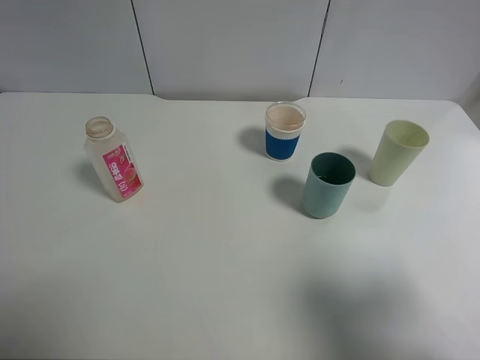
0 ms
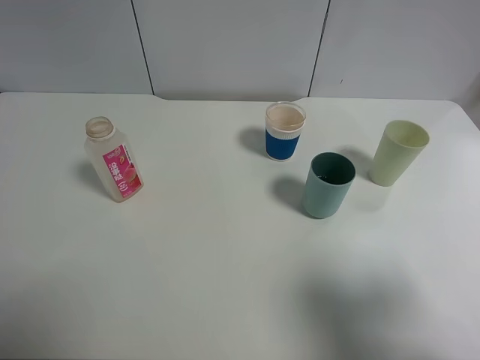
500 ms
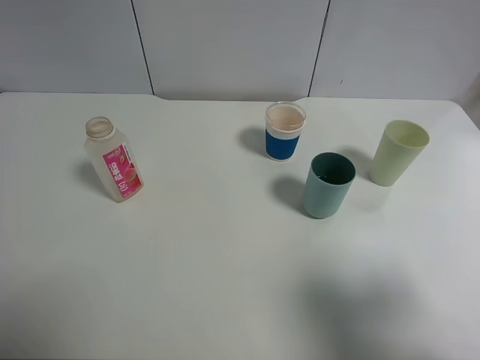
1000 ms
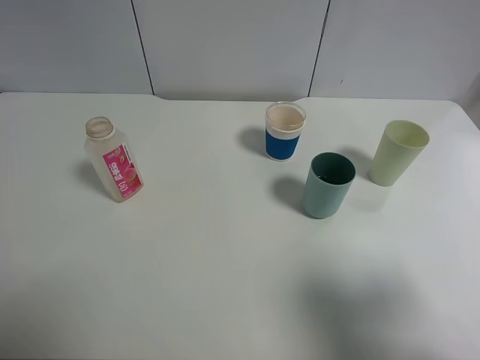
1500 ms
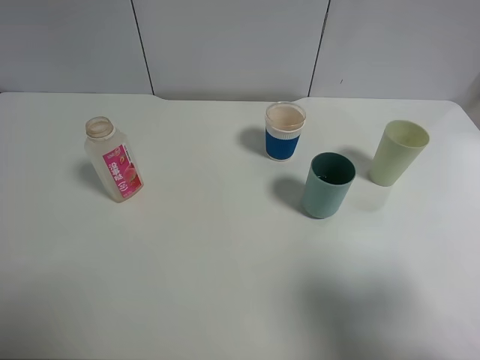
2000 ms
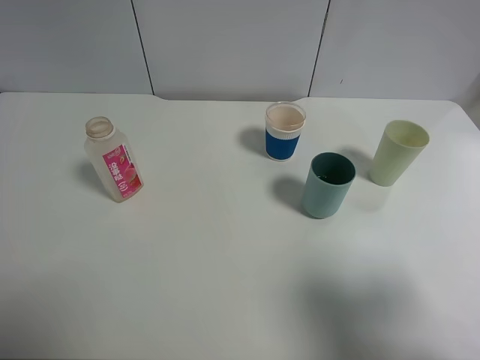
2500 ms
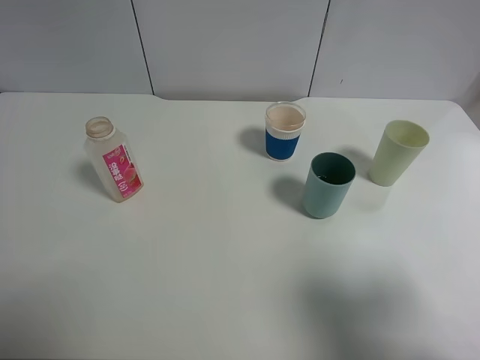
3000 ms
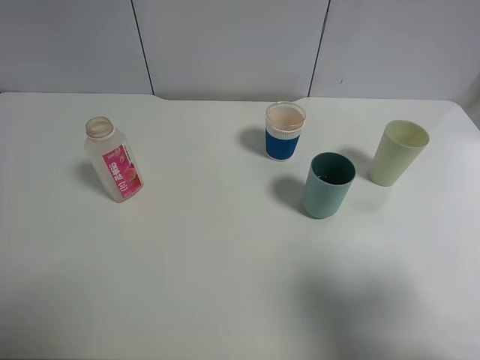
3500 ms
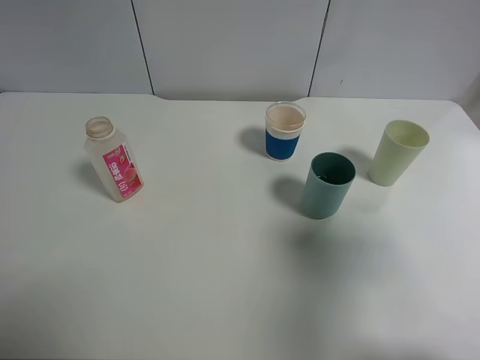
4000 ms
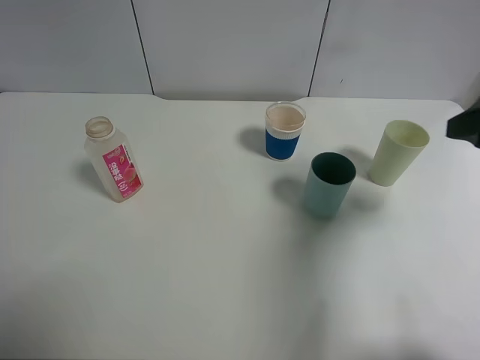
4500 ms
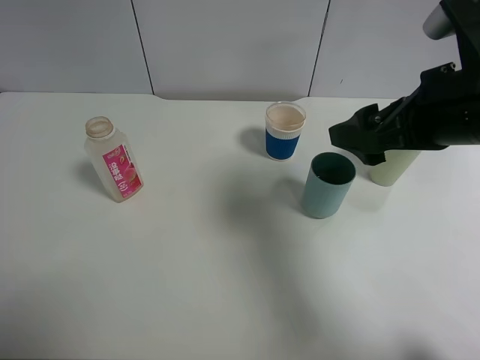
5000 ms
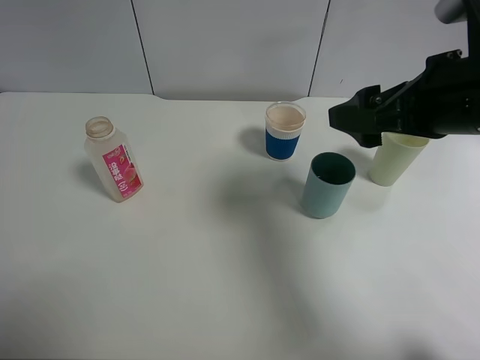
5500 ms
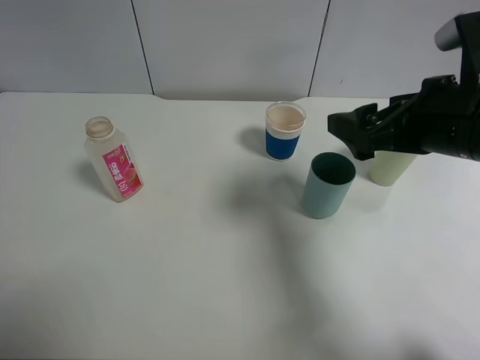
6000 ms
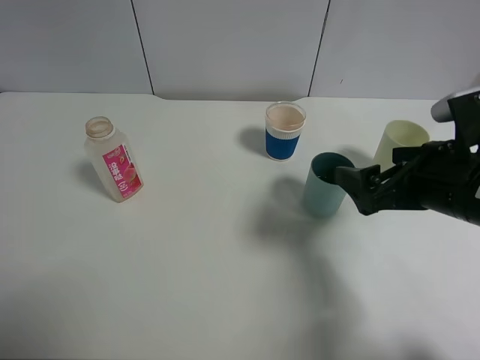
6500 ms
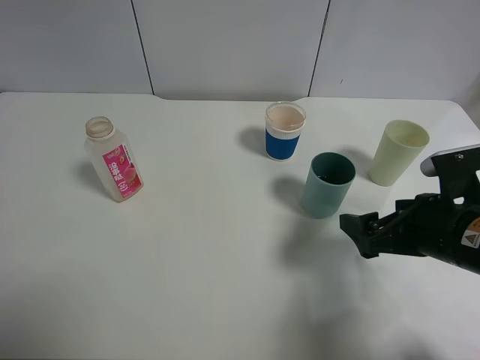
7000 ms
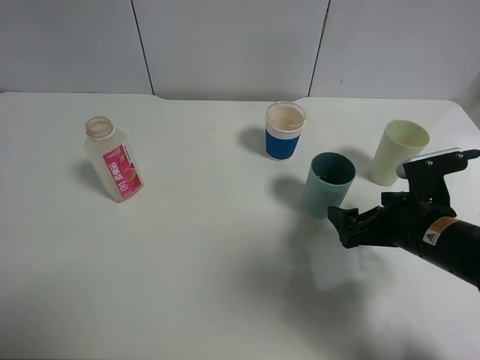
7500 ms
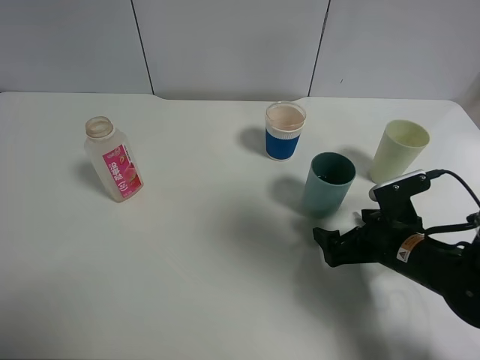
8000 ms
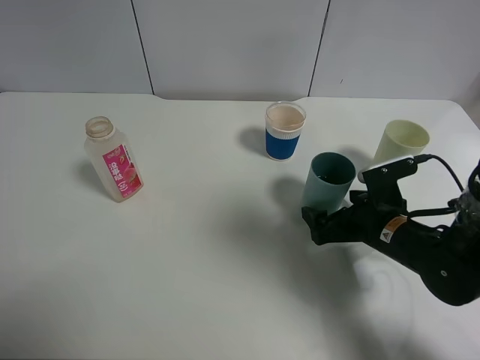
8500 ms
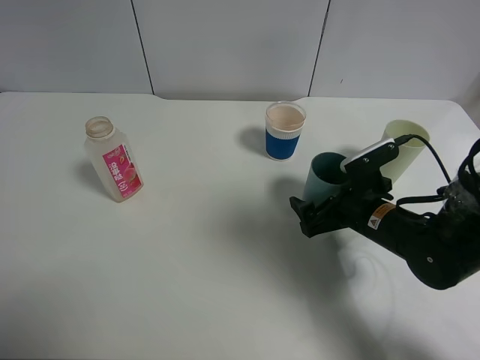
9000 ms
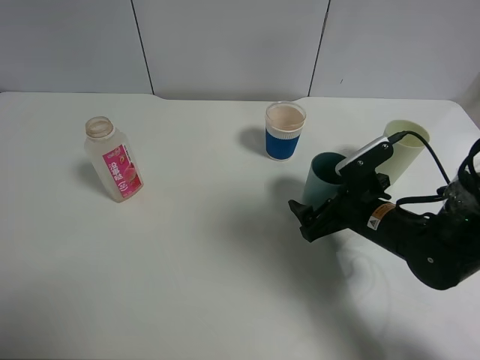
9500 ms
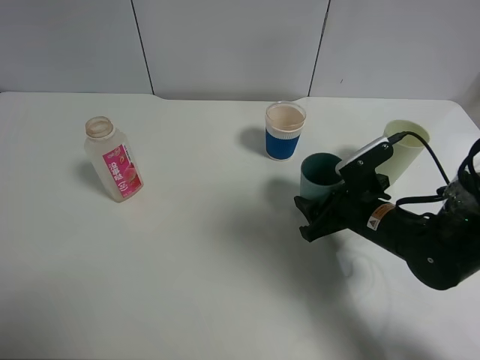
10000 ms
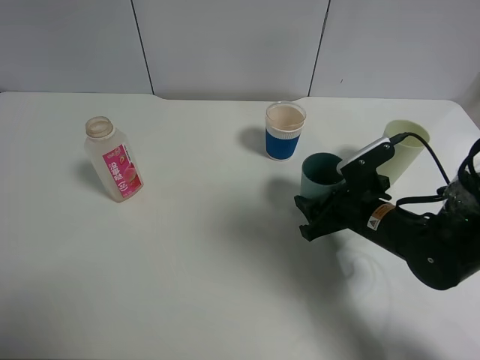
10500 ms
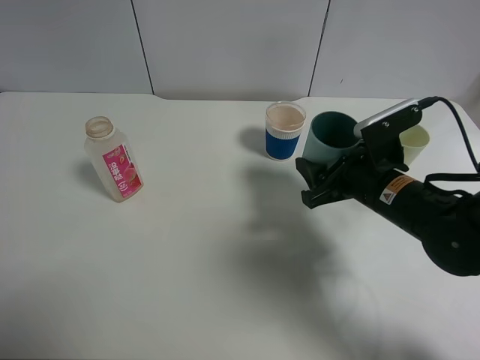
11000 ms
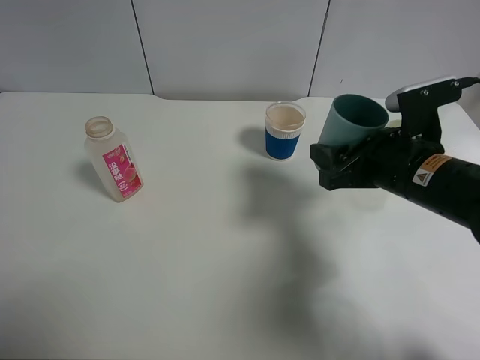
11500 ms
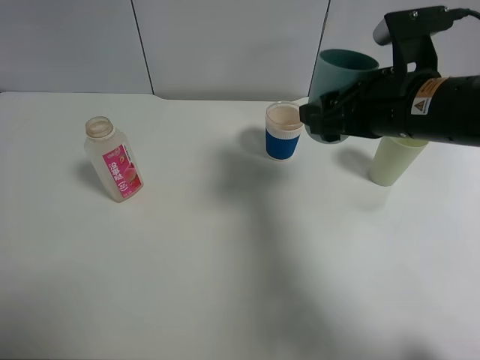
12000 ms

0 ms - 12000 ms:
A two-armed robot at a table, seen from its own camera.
Task of the whole recording: use a clamp to hold the bottle of the drink, pour the beverage into a random cup, then clamp the cup containing the drink and pour the drink into another random cup.
Step, 0 ms - 10500 ms: Pick up the blue plastic cup bottle with right gripper.
2000 ms - 4000 ms: The right gripper is displaced forward by some 10 cm.
4000 ms - 6000 ms: The right gripper is displaced forward, to the left and downward by roughly 15 cm.
6000 ms - 8000 ms: The right gripper is displaced downward by some 20 cm.
8000 ms - 10000 ms: The right gripper shifts by roughly 5 cm, and closes up.
10000 ms - 12000 ms: The right gripper travels upward by some 15 cm.

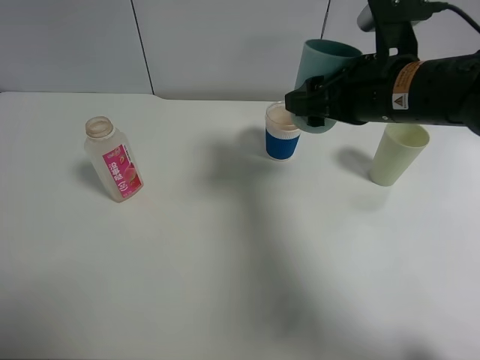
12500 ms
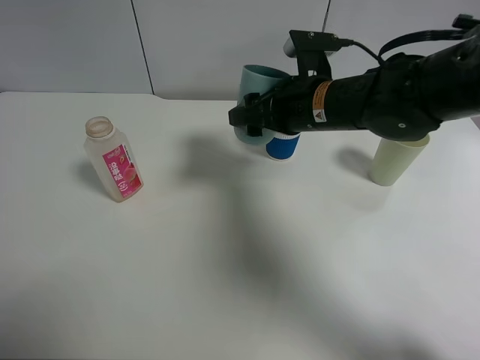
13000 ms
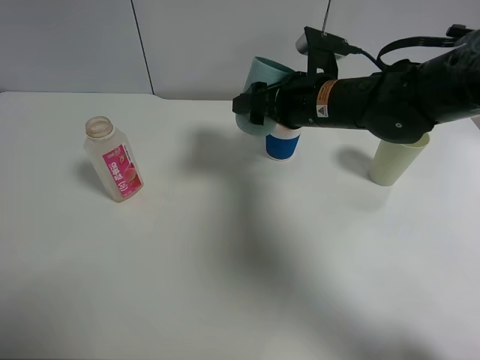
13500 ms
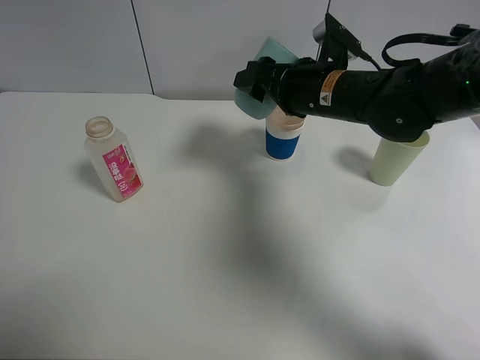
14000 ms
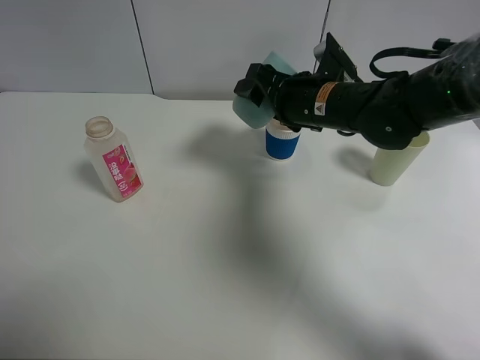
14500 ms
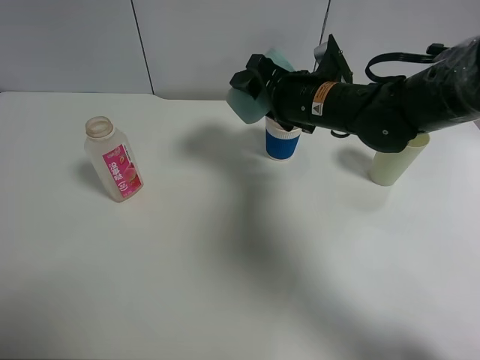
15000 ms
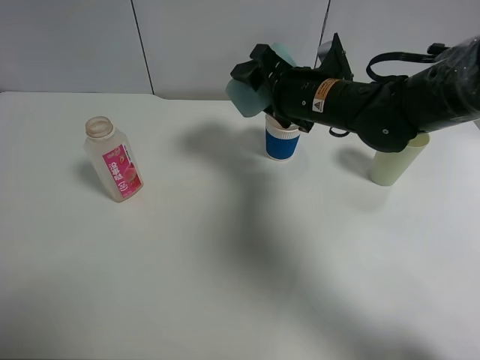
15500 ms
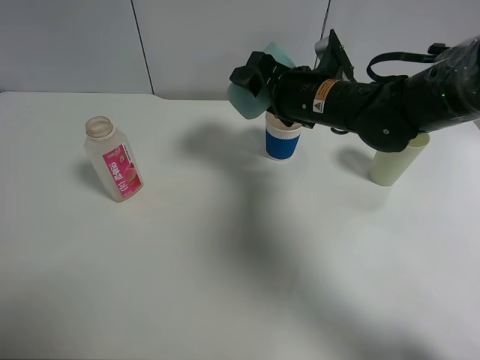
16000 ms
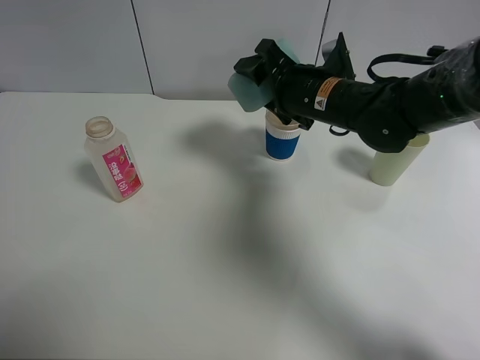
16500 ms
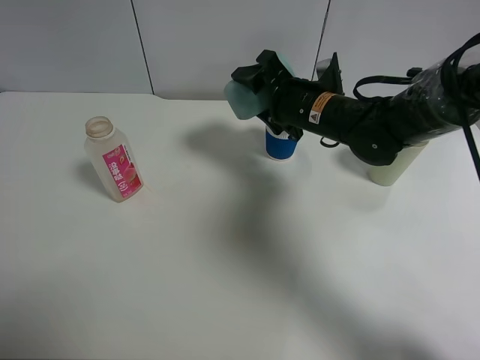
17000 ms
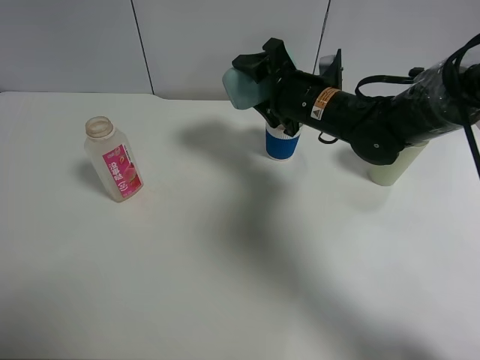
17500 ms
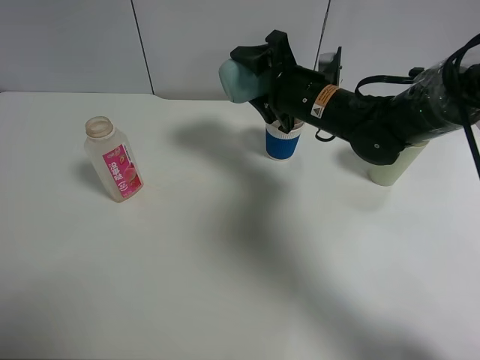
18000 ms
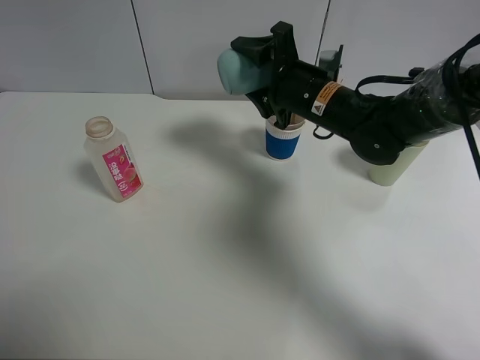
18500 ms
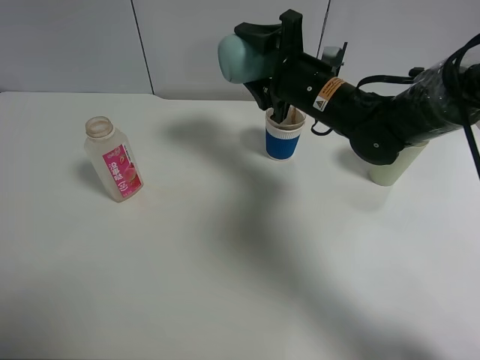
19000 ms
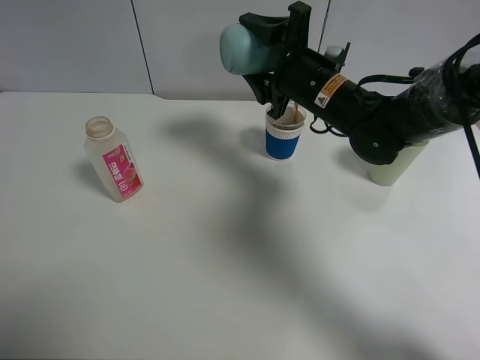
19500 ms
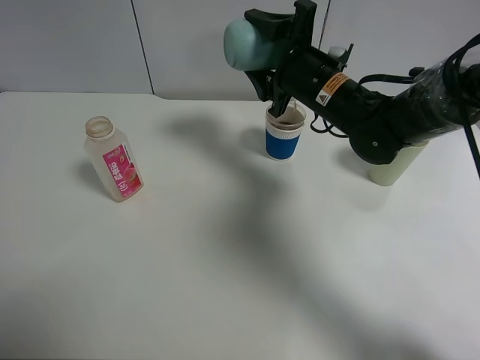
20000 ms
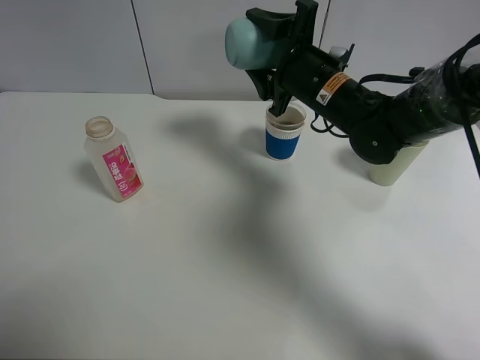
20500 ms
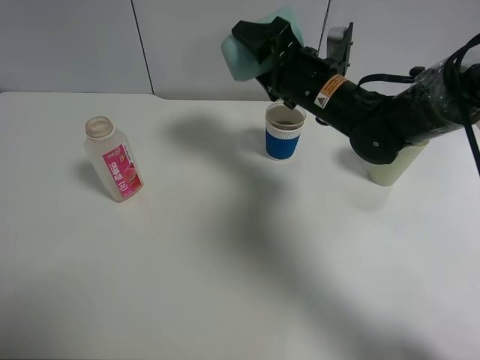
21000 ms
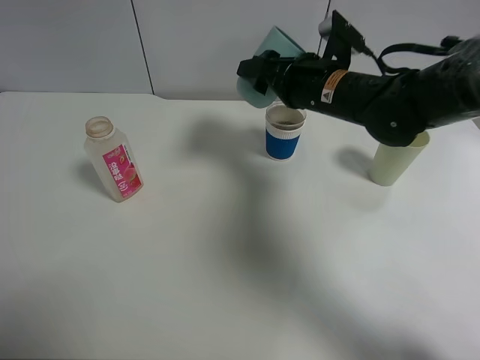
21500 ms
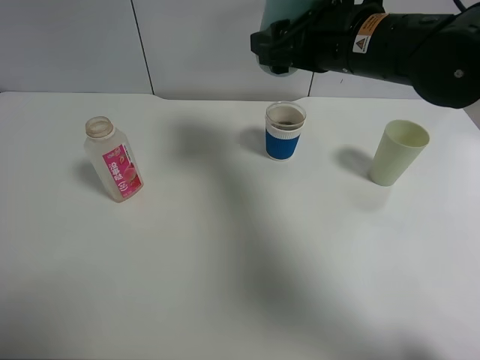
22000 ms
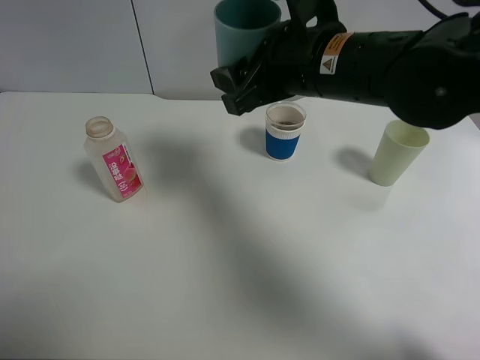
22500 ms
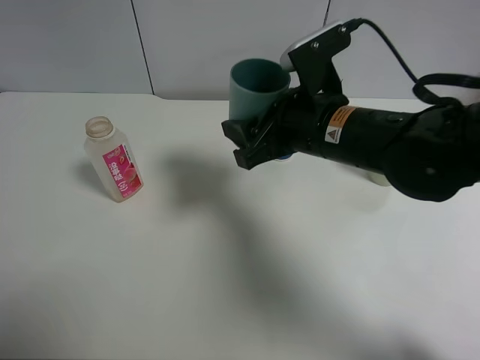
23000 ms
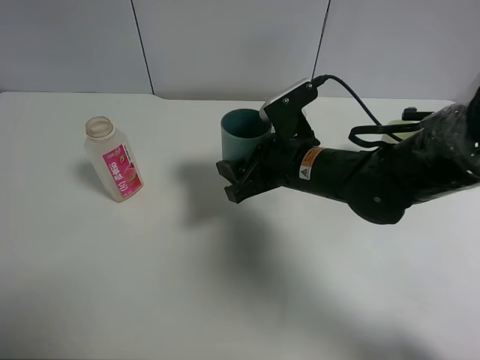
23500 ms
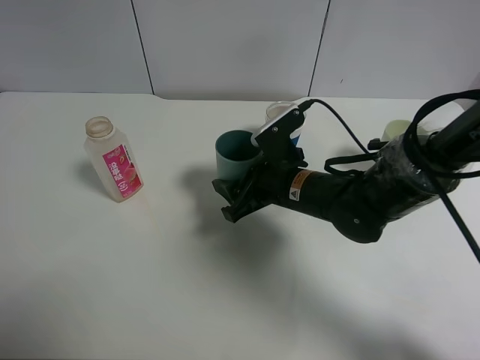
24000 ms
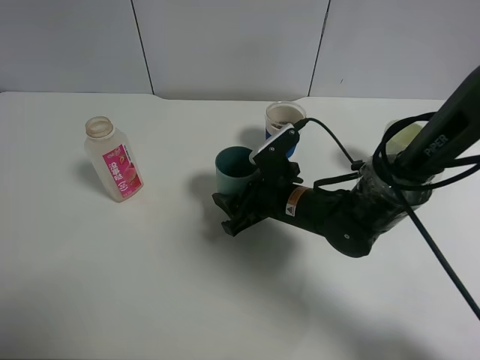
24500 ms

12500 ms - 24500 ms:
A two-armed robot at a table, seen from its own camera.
Task of the whole recording: use a clamp to hold the bottle of the drink, pour the beverage into a random cup, then clamp the cup containing the drink and pour the drink into another random cup.
Step, 12500 ms - 20500 ms: Pour the drink into the paper cup with right gripper.
12500 ms - 14500 ms: The right gripper is displaced forward and downward by some 10 cm.
14500 ms - 16500 ms: The grippers move only a little.
18500 ms - 20500 ms: The grippers make only small movements.
20500 ms - 22500 ms: The right gripper shifts roughly 10 cm backward and upward.
22500 ms - 24500 ms: The right gripper is displaced downward by about 20 cm.

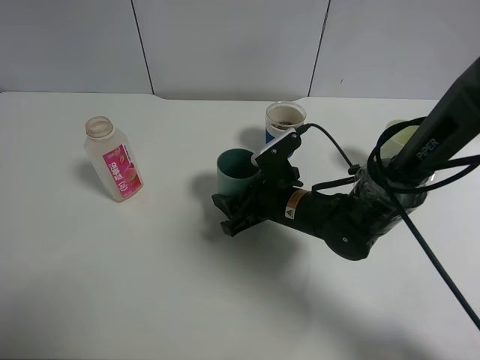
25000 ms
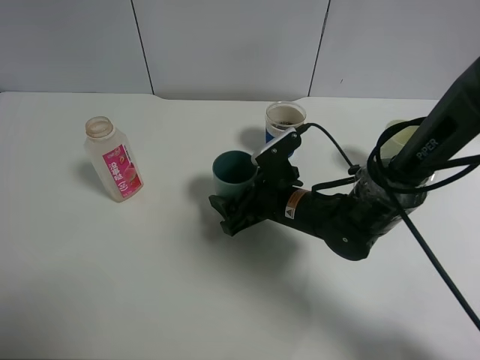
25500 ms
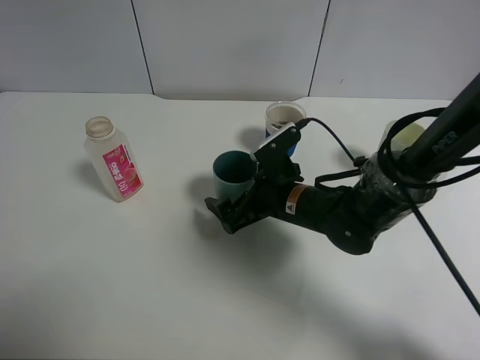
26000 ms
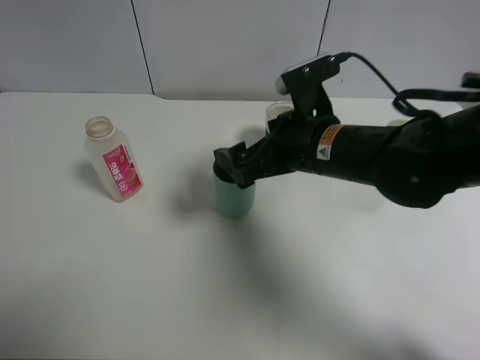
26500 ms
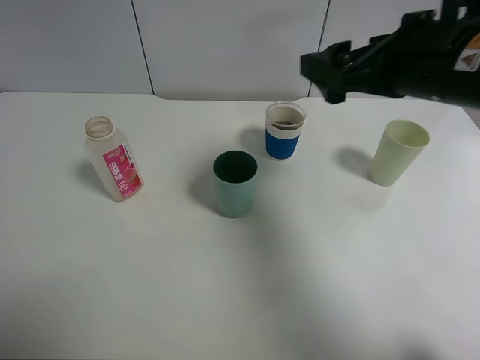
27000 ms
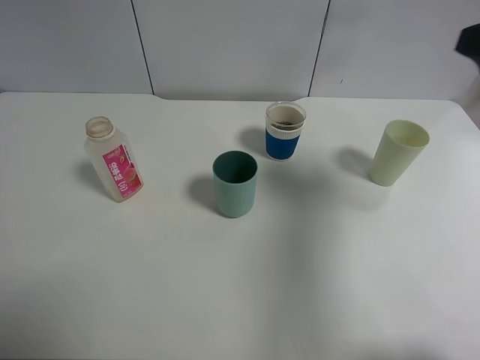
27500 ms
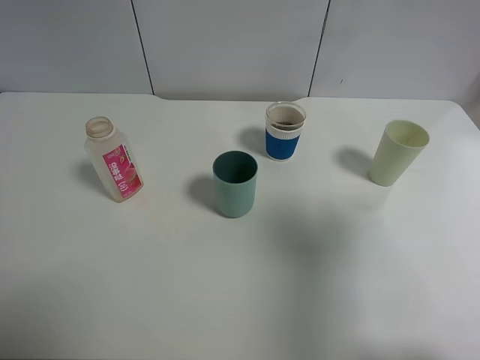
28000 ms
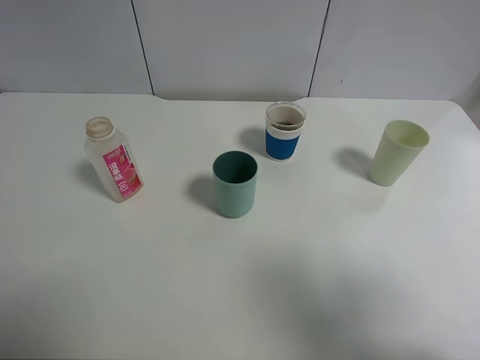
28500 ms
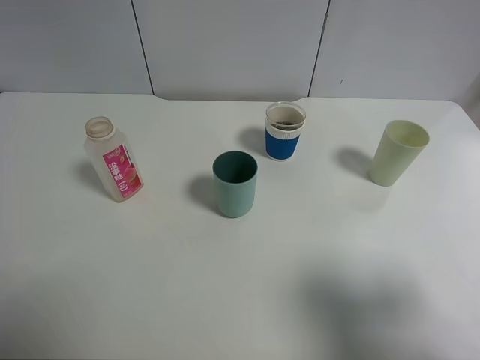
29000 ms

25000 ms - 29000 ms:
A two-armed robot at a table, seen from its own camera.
Task of the whole recording: use a clamp to hold the bottle of the drink, pour the beverage into a random cup, then clamp the cup containing the drink and pour the drink into another random cup.
25000 ms - 27000 ms: The right gripper goes roughly 25 cm upward and to the right, and opens up.
27000 ms - 29000 ms: The right gripper is displaced backward and to the right by roughly 25 cm.
